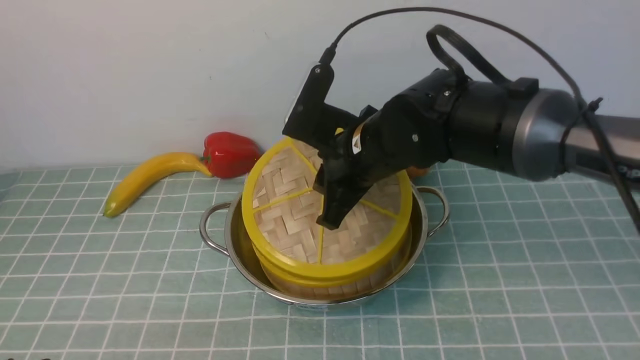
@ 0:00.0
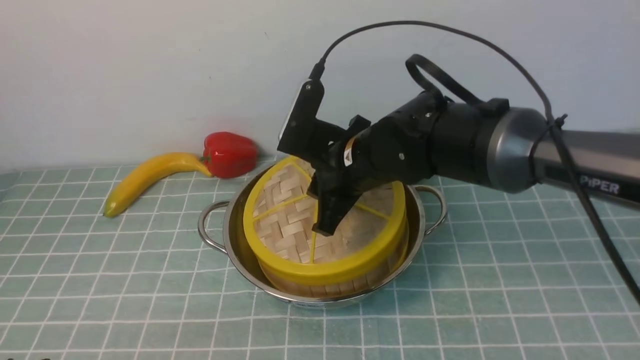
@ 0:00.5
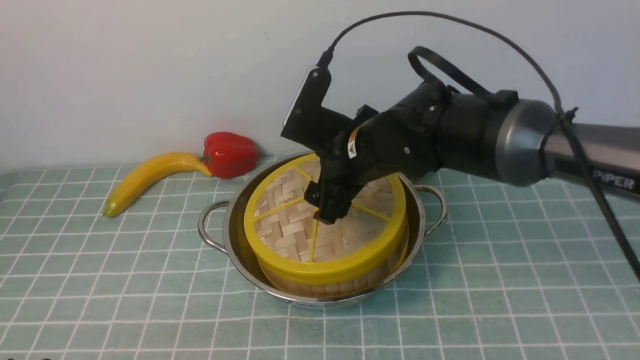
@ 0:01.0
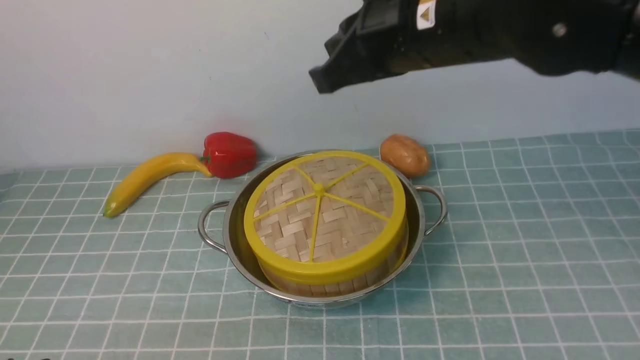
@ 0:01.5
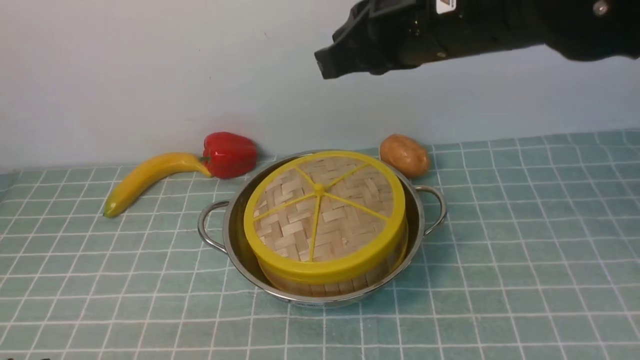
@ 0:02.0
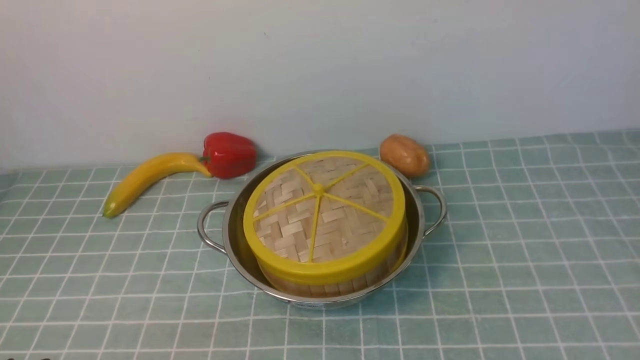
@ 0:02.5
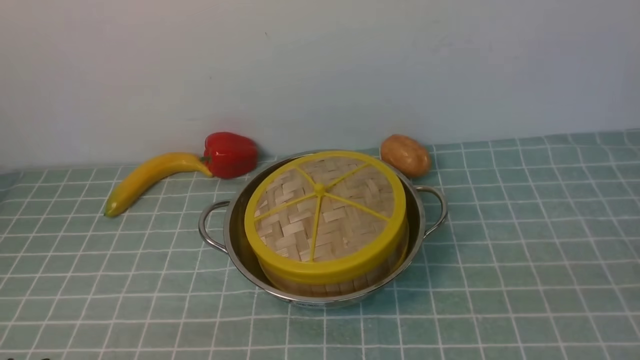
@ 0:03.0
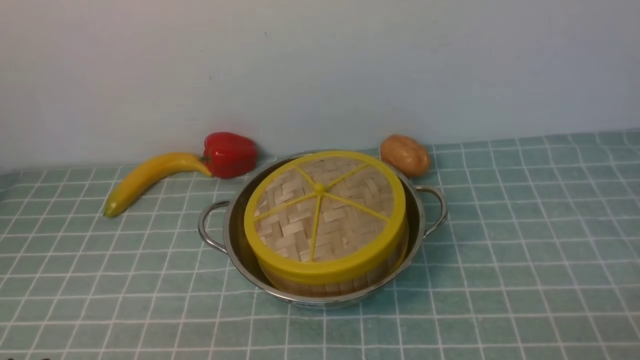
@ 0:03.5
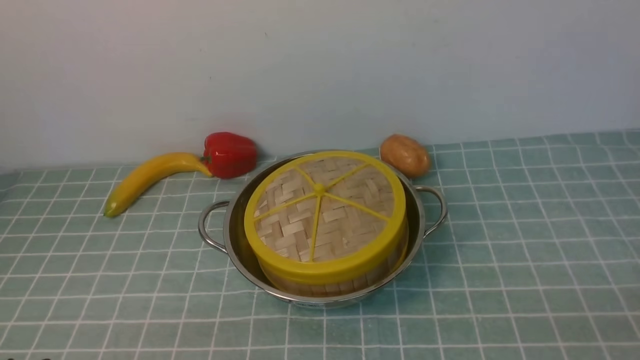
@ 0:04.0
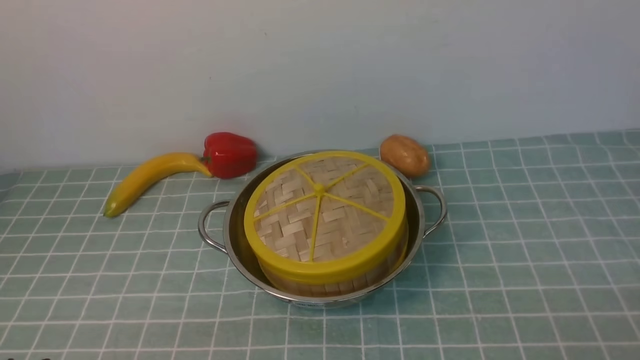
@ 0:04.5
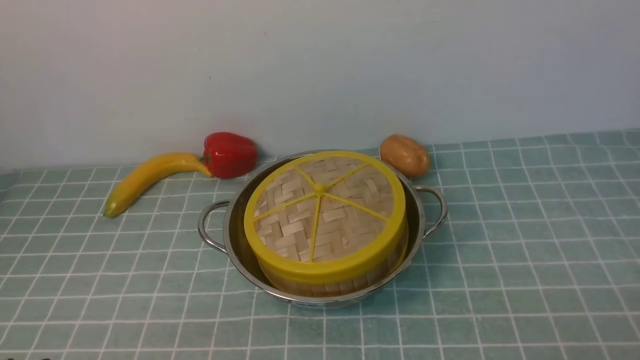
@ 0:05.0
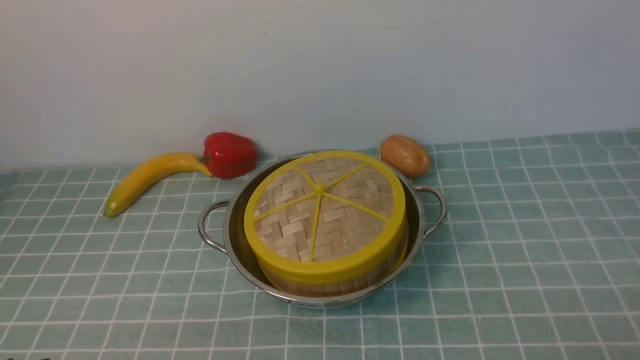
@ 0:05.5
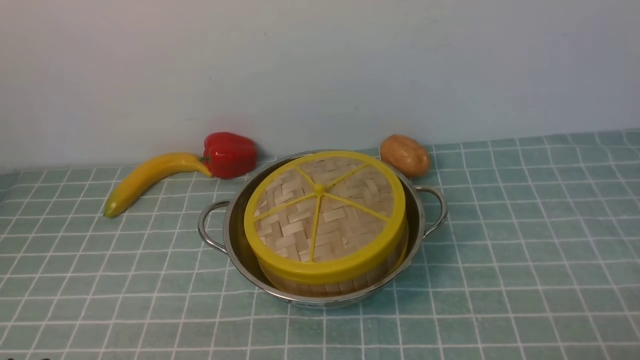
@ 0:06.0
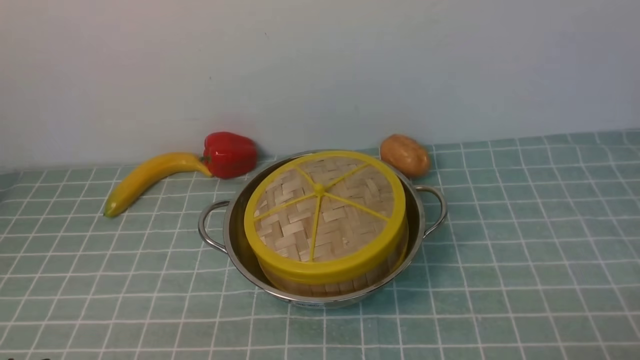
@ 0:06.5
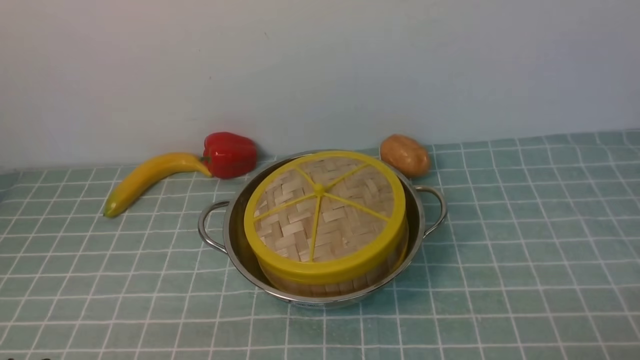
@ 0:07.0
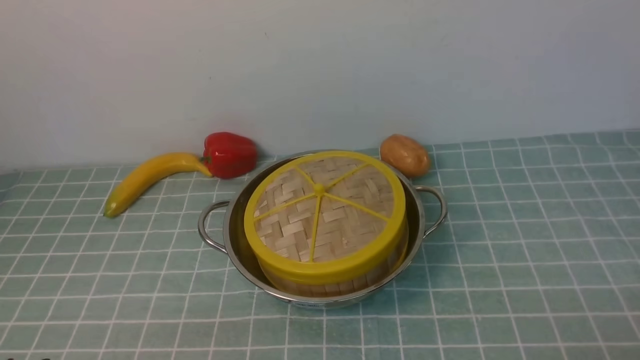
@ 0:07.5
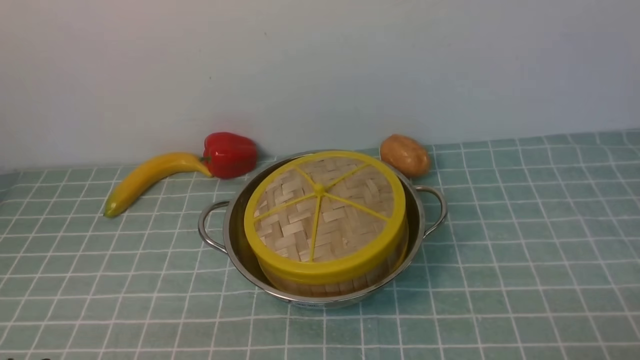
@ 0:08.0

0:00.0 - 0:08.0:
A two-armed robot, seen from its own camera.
Task of the whole recording: place the steamer in the pot on the blue tablecloth, and put the lid on the steamer.
0:00.0 - 0:02.0: The right gripper shifts approximately 20 cm upward, backward and to the right, and closes its fingers.
0:02.0 - 0:04.0: The right gripper goes about 35 cm backward, to the right and downward, and opens.
0:06.0 - 0:08.0: Neither gripper changes place.

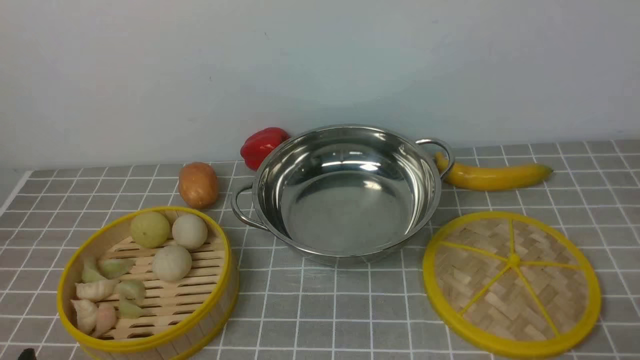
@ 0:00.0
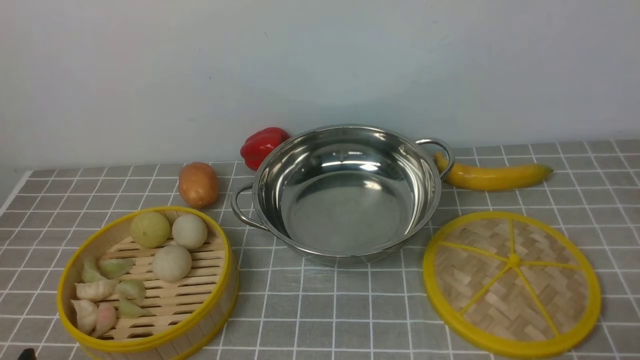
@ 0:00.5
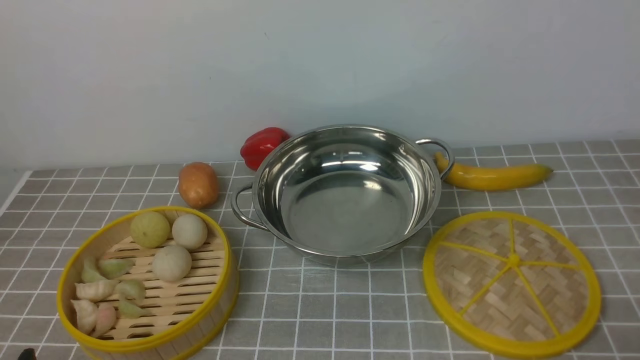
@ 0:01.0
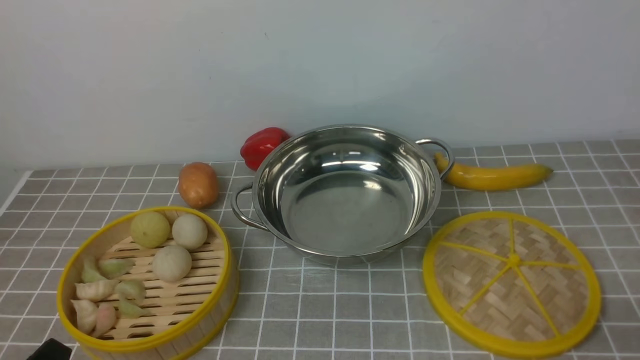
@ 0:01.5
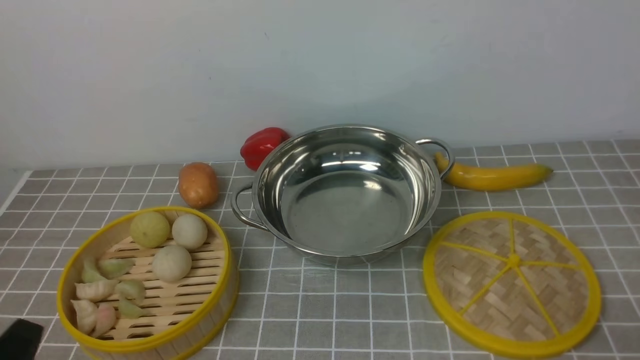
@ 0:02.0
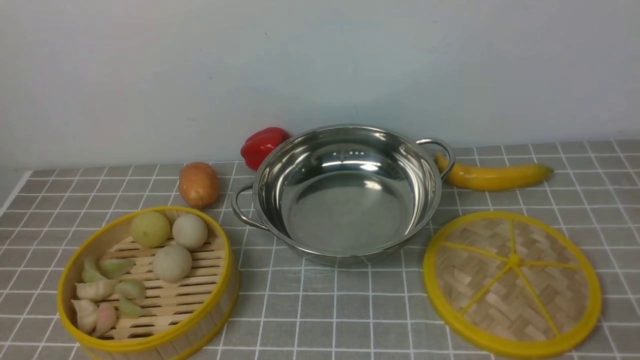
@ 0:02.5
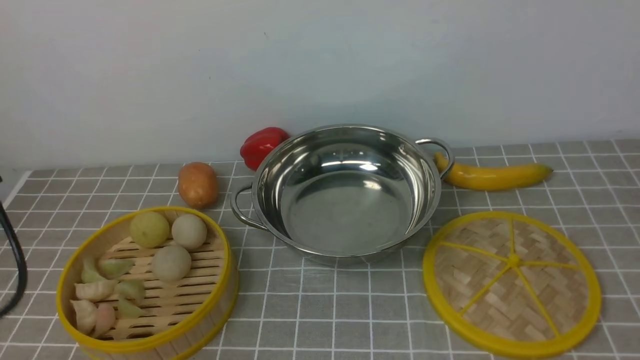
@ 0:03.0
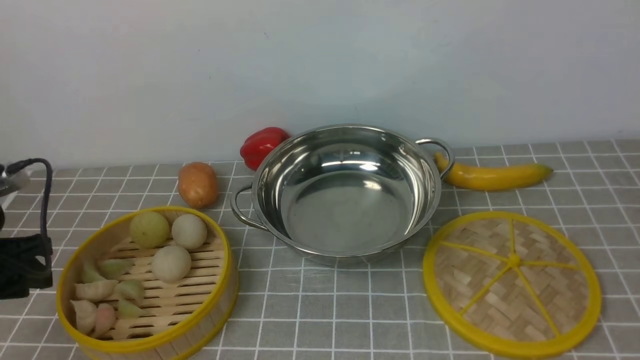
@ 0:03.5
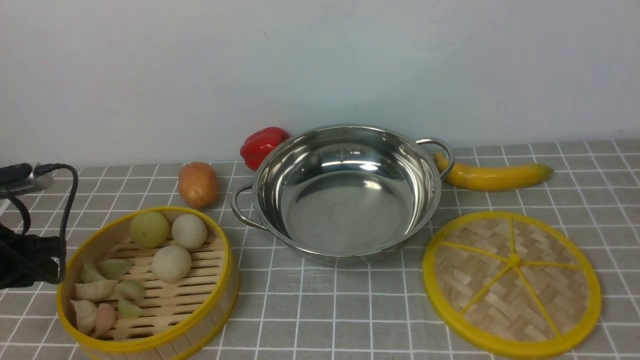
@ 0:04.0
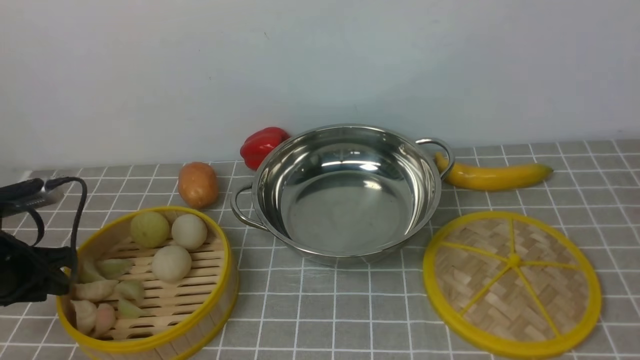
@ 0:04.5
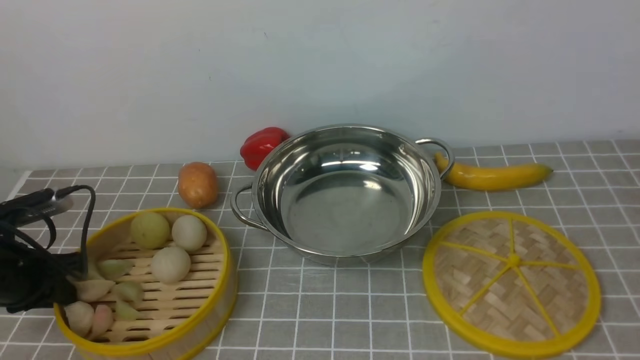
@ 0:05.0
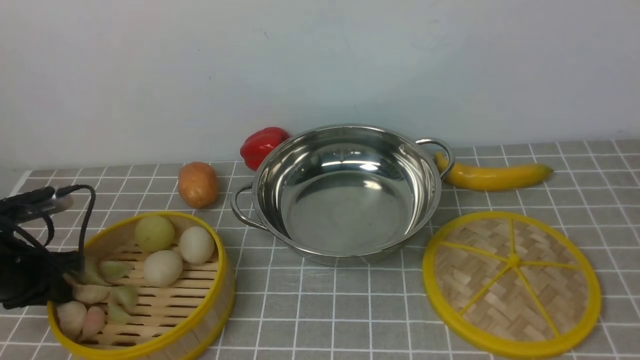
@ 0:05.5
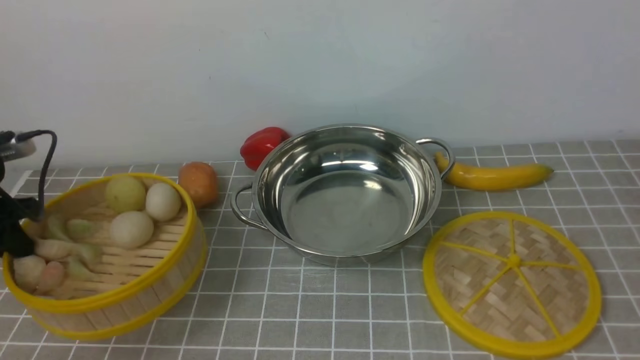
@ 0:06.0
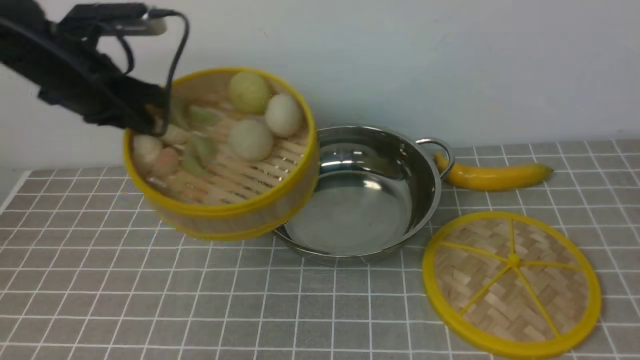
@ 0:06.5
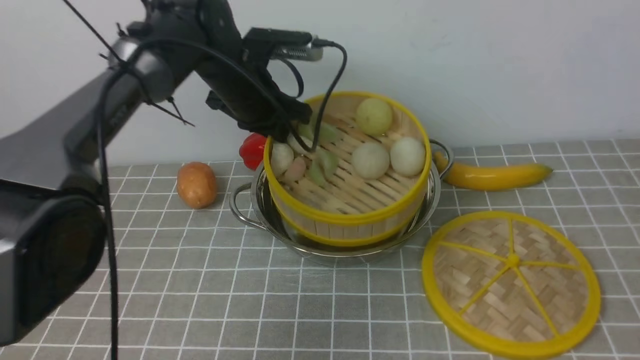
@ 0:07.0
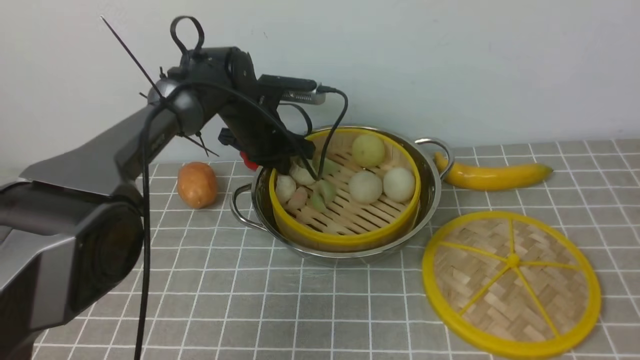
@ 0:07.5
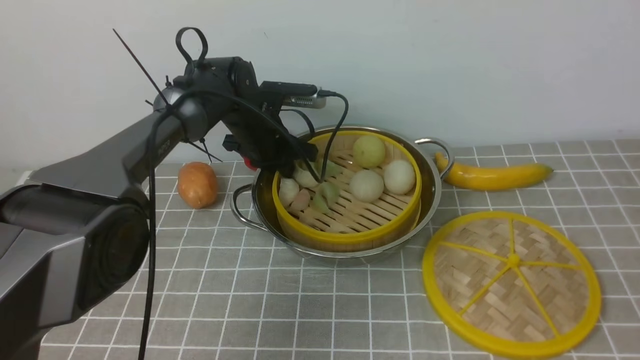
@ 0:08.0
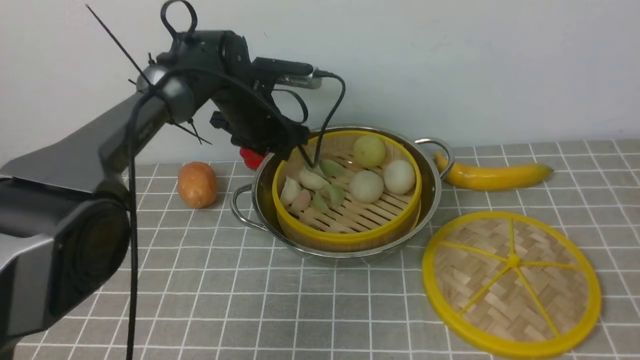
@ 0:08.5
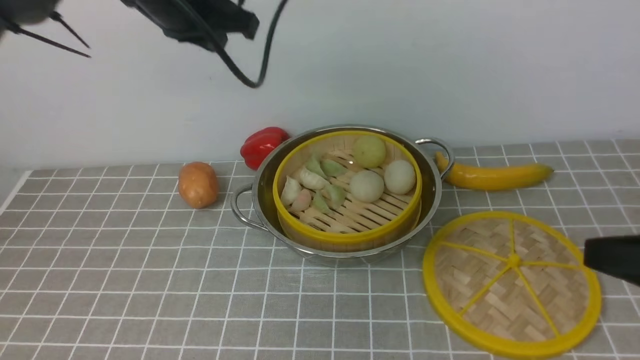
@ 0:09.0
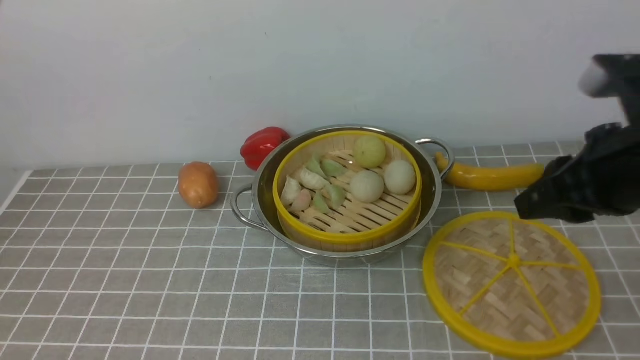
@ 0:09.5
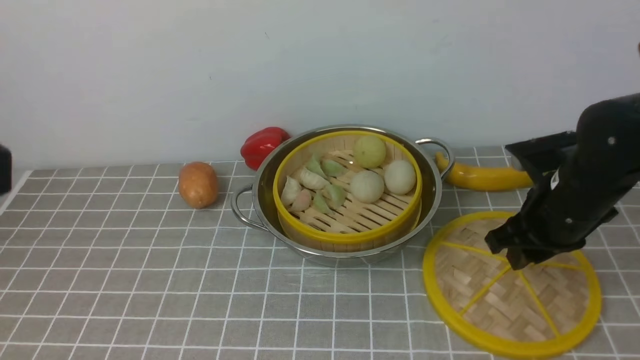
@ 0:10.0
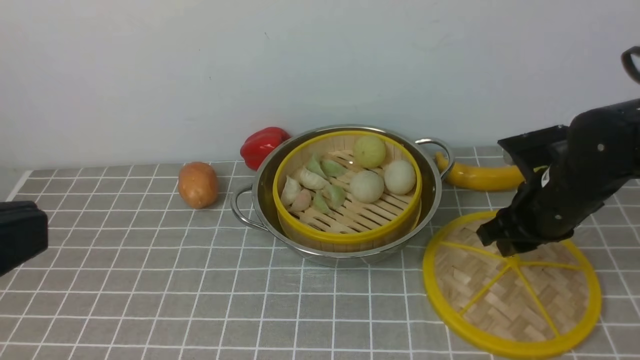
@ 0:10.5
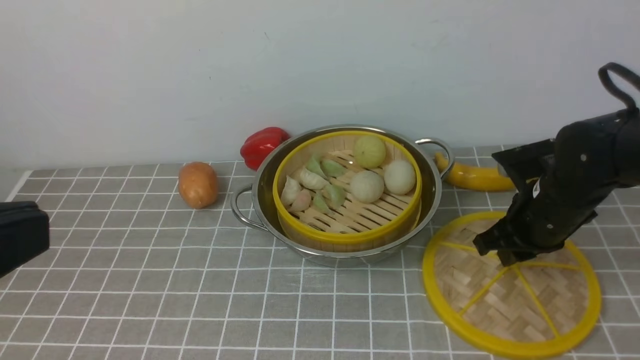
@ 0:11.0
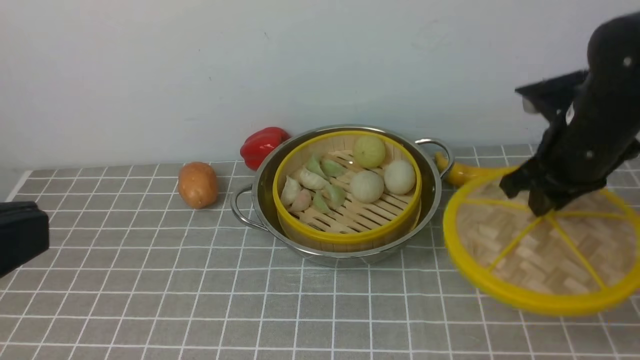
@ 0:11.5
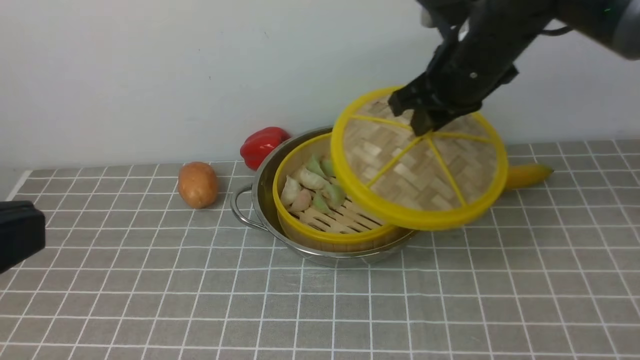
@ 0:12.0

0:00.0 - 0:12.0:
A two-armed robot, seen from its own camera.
Task of the whole recording: place the steamer in the pot on the grey tablecloth, and put the lid on the steamer.
Step, 0:00.0 - 0:05.5: use the left arm to lift the steamer closest to it.
Step, 0:06.0 - 0:08.0: use the left arm to put the steamer into the iron steamer pot in the middle.
Step, 0:09.0 - 0:11.0: use the right arm to lift the lid of the steamer.
0:02.0 - 0:04.0: The left gripper moves forward and to the left, about 25 cm.
0:04.0 - 0:06.0: The left gripper travels forward by some 5 cm, and closes.
0:06.0 - 0:08.0: The left gripper shifts approximately 35 cm to the right and forward, and opens.
0:08.0 - 0:10.0: The right gripper heads forward and downward, covering about 30 cm. Meanwhile the left gripper travels backward and upward by roughly 50 cm, and closes its fingers.
0:10.0 - 0:12.0: The right gripper heads upward, to the left and forward, covering roughly 15 cm.
